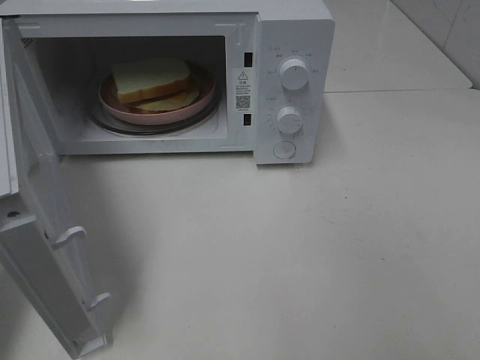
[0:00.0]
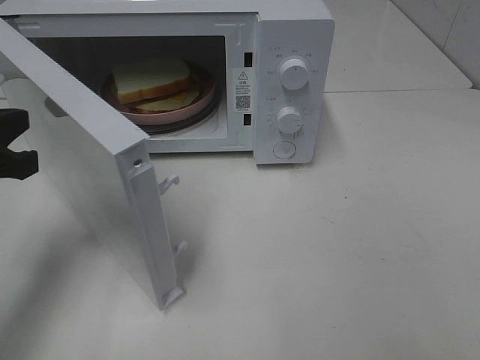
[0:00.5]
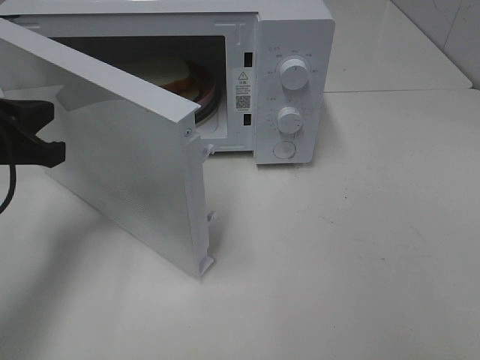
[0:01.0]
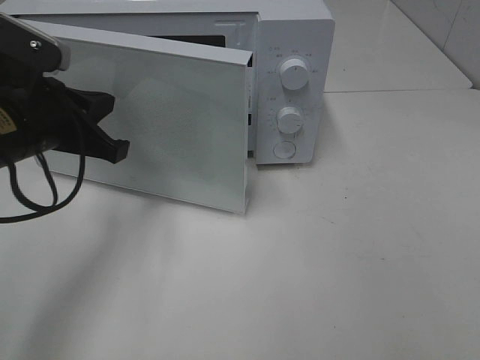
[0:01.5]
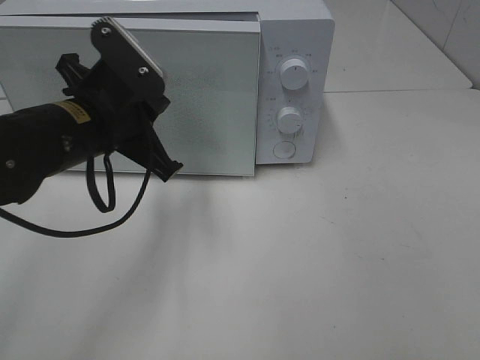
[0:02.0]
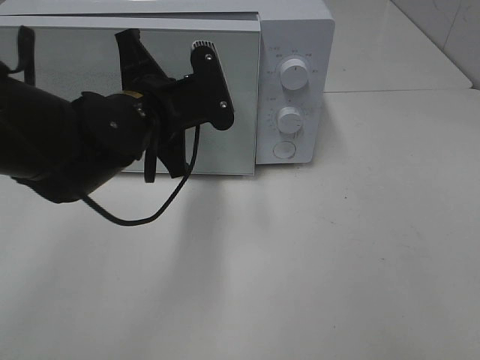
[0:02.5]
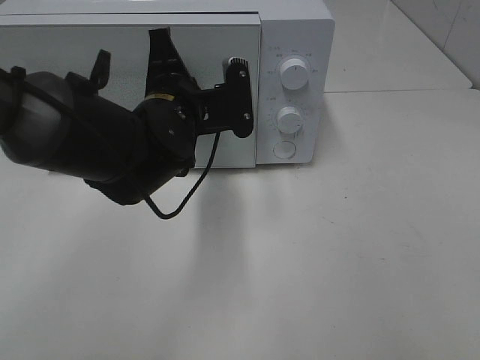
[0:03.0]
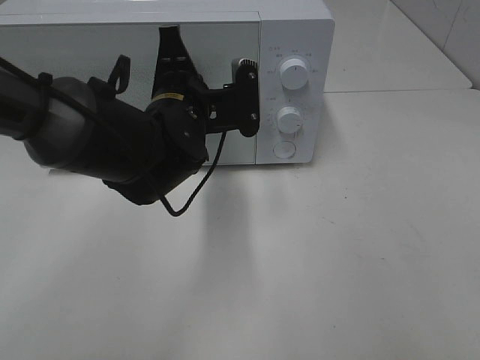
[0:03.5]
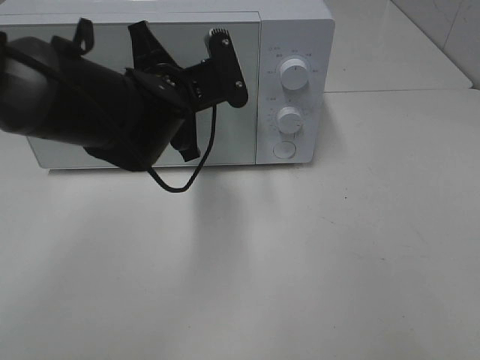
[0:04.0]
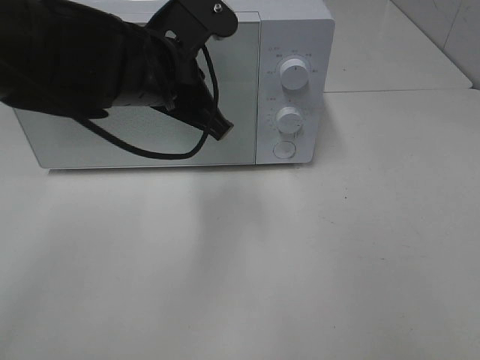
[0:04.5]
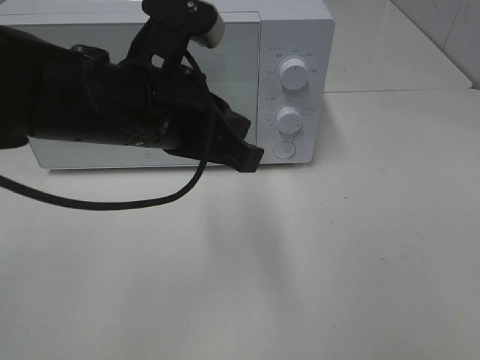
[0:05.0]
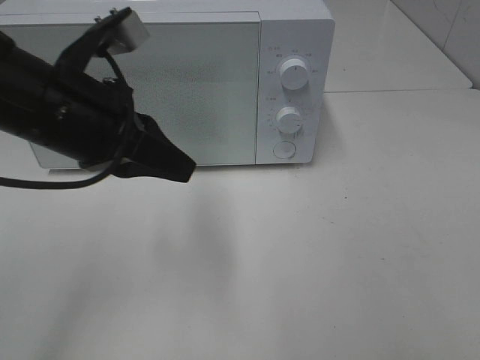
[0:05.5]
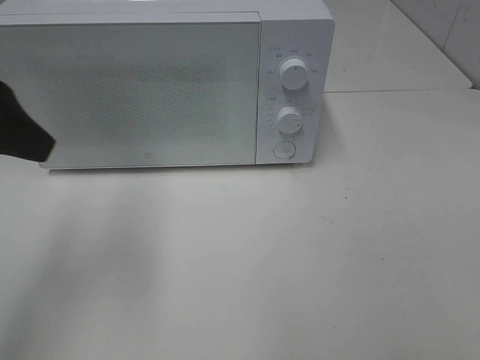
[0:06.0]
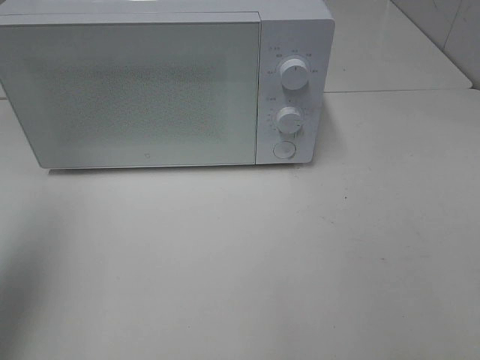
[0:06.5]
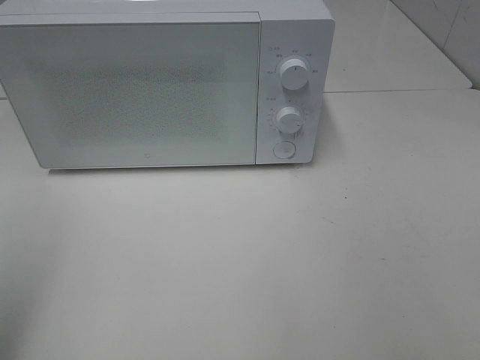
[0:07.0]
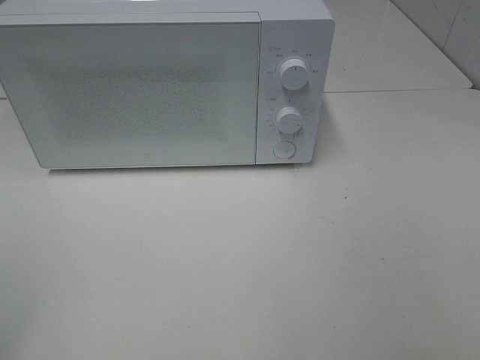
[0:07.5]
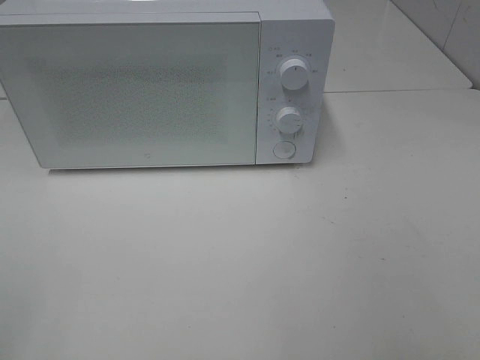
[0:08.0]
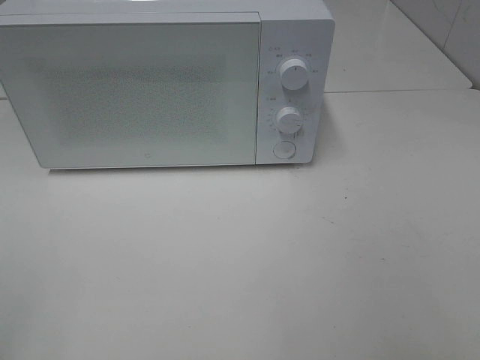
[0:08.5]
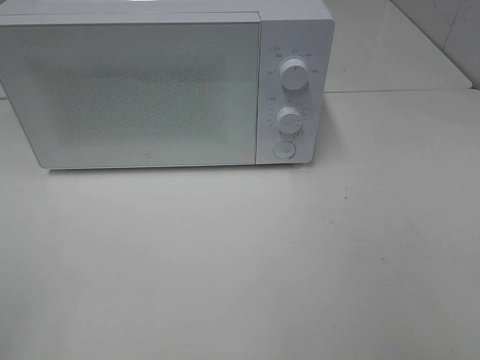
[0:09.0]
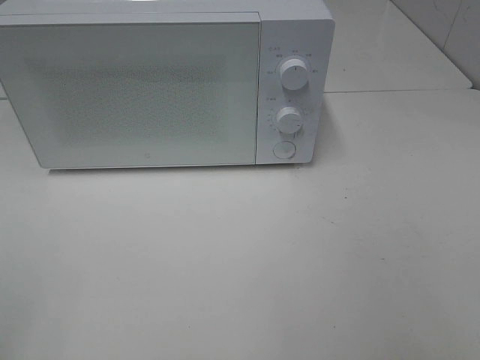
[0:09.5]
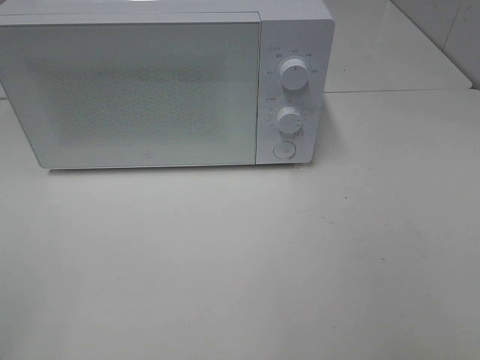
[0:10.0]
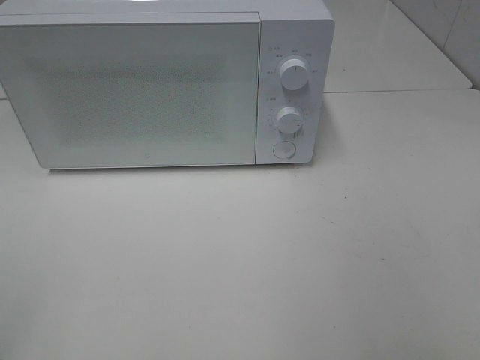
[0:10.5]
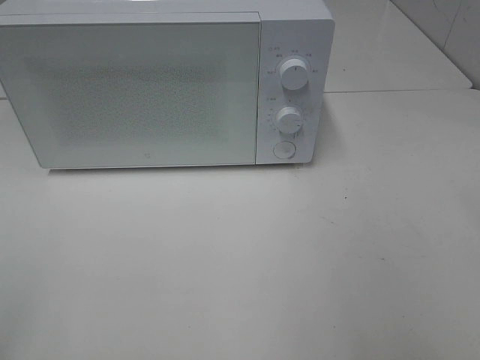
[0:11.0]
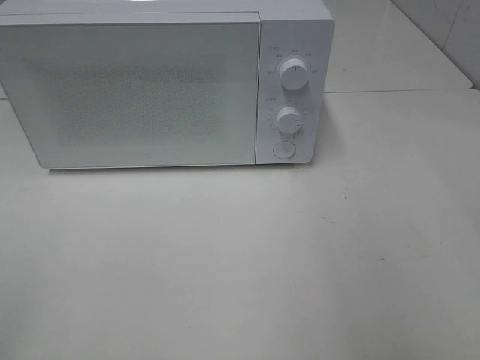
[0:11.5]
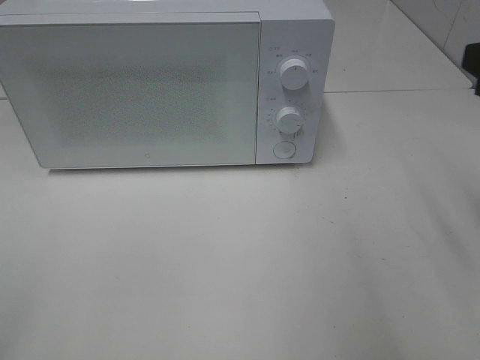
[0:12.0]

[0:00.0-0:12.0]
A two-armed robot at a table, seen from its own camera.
Task of the whole recording: Heat Sandwich.
Step, 0:00.0 to 0:05.0: Left hand: close the microwave door.
0:00.0 to 0:02.0: The left gripper heads to the right and forward, covering approximately 20 cm.
0:02.0 to 0:04.0: The left gripper shifts approximately 5 cm to the right.
0:04.0 to 0:06.0: The left gripper travels to the left, upward and backward by roughly 25 cm, and opens up.
0:06.0 to 0:08.0: The left gripper moves backward and to the left, about 25 cm.
0:08.0 to 0:10.0: The two grippers keep their place.

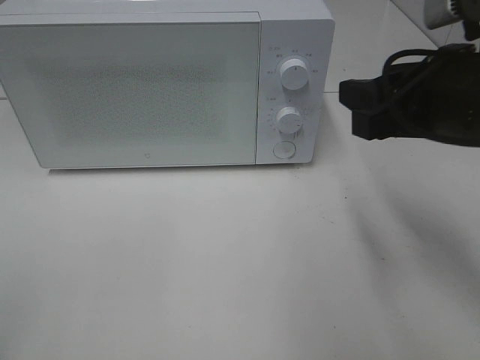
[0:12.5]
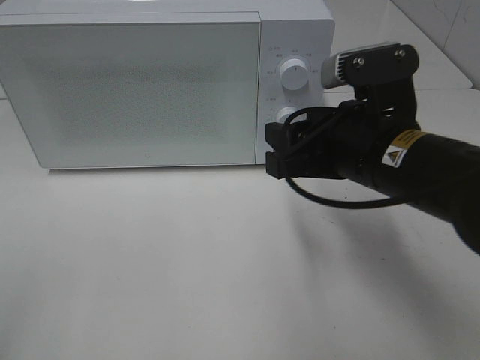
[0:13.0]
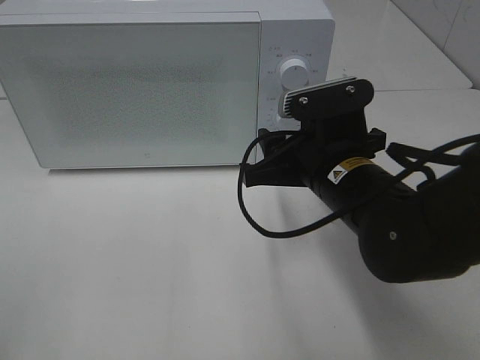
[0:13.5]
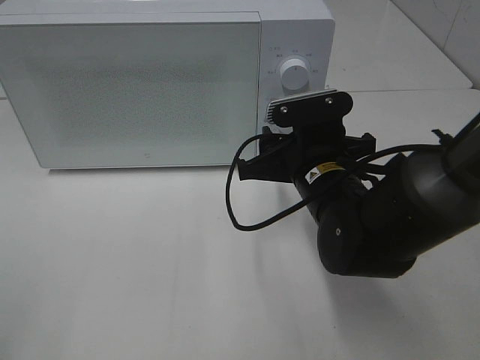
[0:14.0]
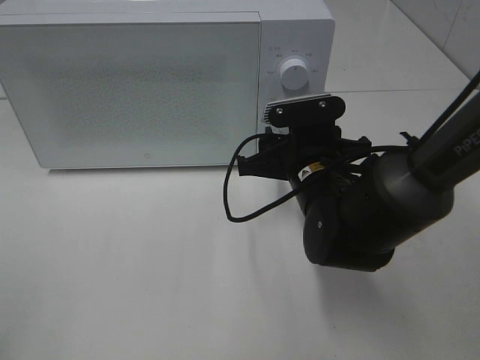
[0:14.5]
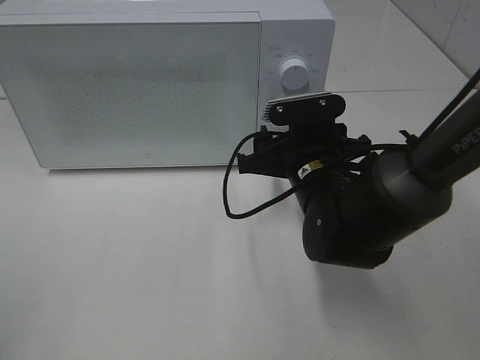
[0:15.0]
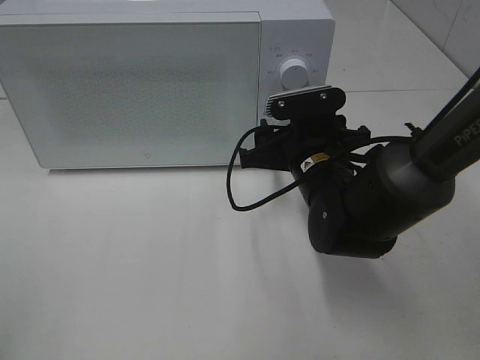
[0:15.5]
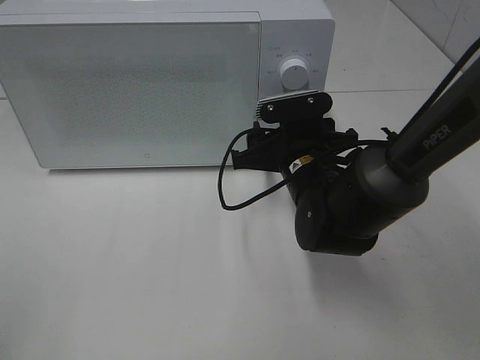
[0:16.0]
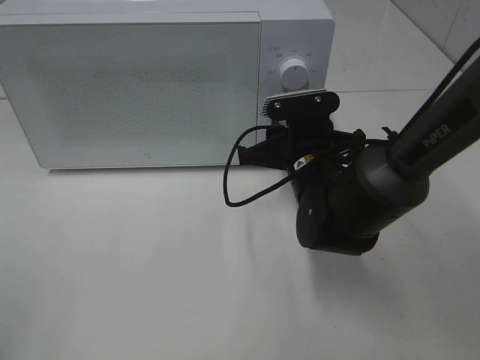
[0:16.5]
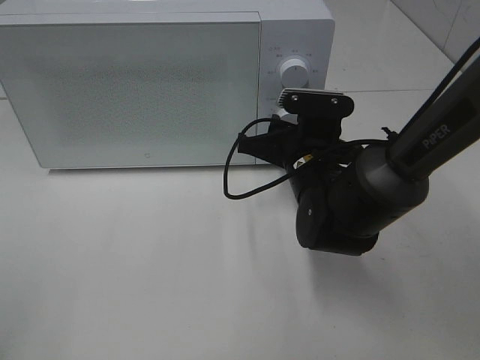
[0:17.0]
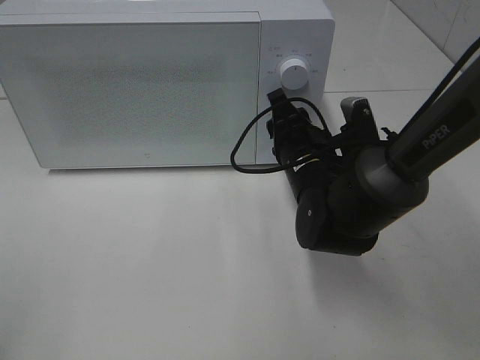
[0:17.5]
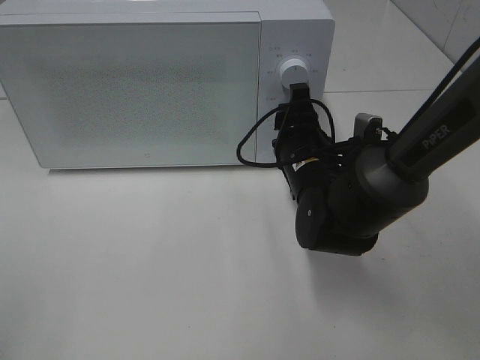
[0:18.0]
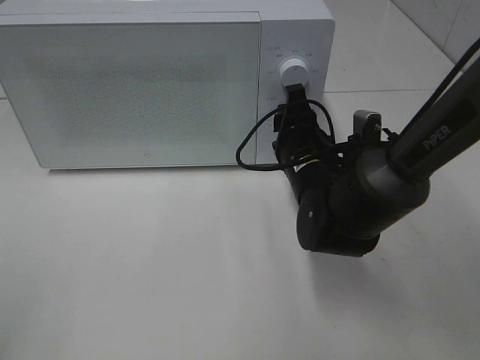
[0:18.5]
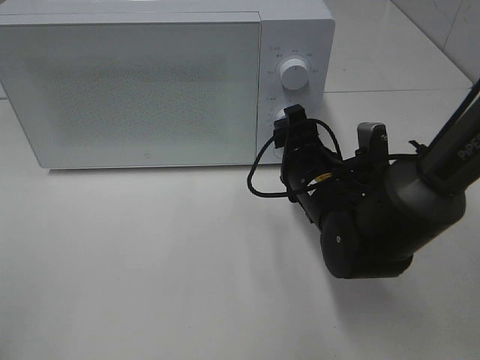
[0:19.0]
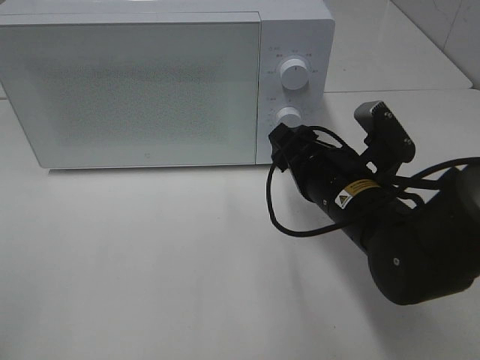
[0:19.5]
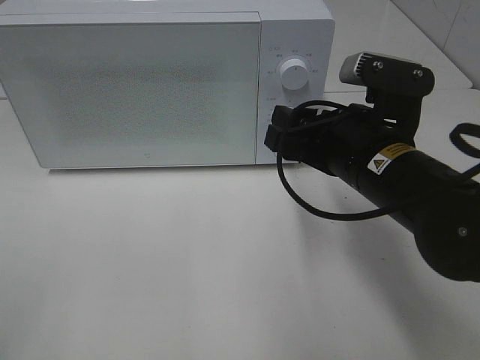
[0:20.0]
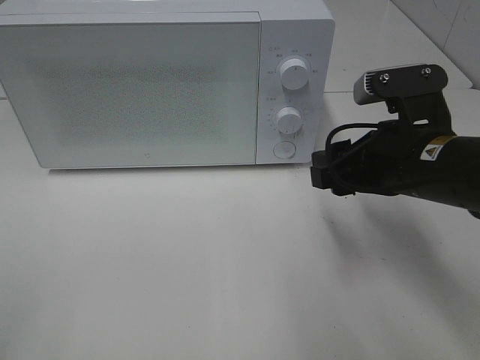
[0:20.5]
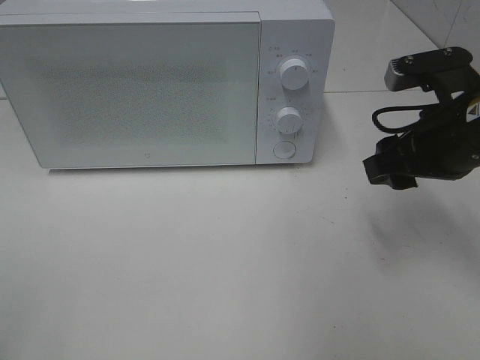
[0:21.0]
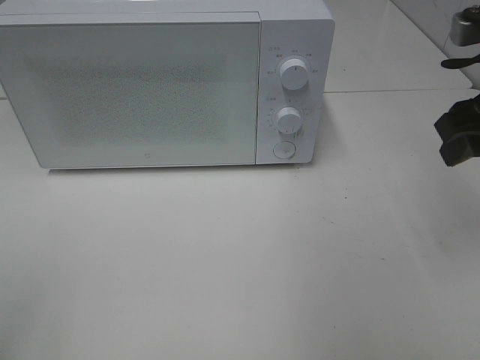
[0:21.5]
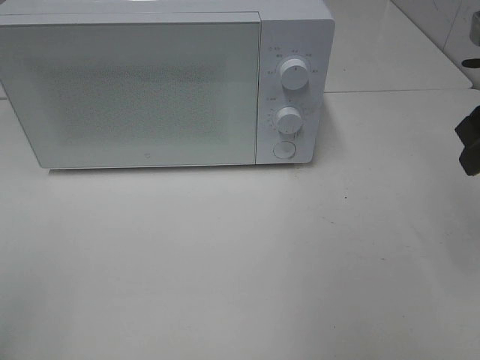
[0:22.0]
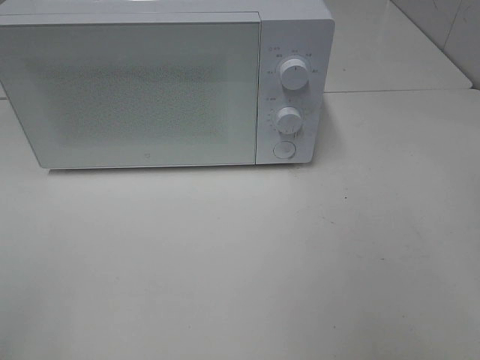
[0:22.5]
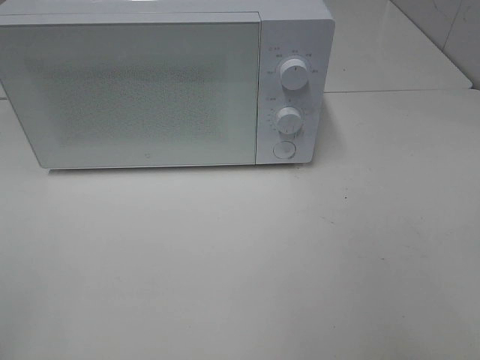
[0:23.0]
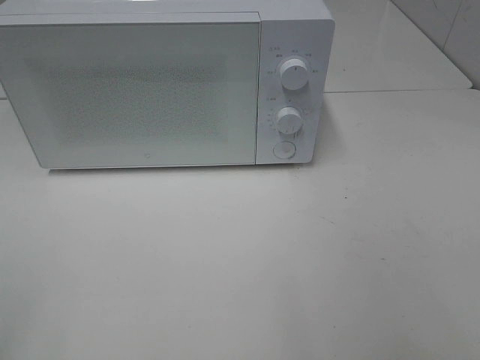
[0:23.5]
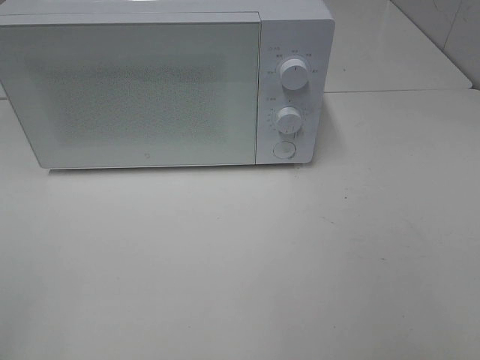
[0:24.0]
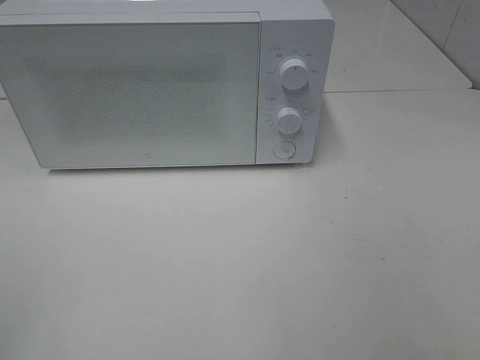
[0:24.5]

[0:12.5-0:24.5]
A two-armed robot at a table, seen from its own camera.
Task of the whole recording: Heat Sandwich.
Step, 0:12.5 to 0:19.5: Right hand: twist timer button.
0:12.5 to 0:14.5: The right gripper is displaced downward, to the left and forward by about 20 cm.
0:14.5 to 0:16.5: The grippers stay close to where they were, moving slightly.
0:18.5 to 0:20.5: The right gripper heads to the right, upward and backward, covering some 15 cm.
0:20.5 to 0:22.5: The right gripper travels to the right, upward and backward by about 15 cm.

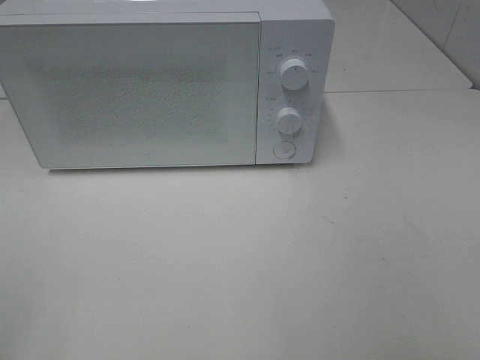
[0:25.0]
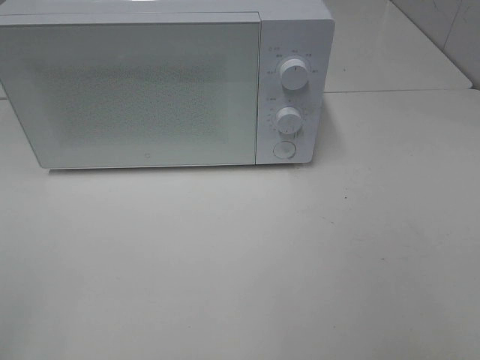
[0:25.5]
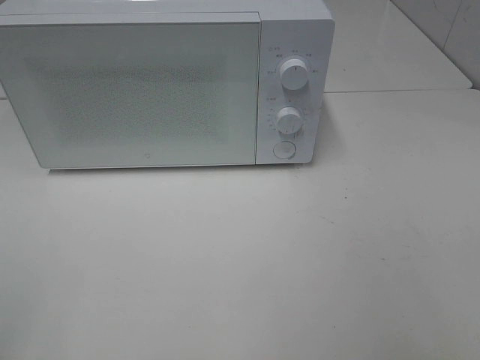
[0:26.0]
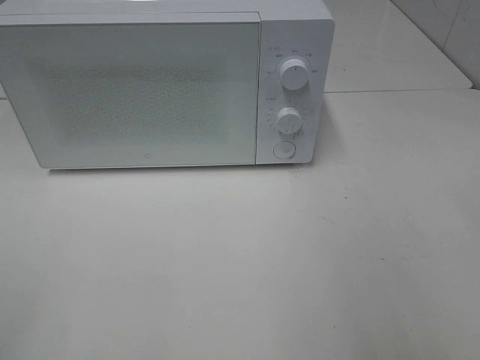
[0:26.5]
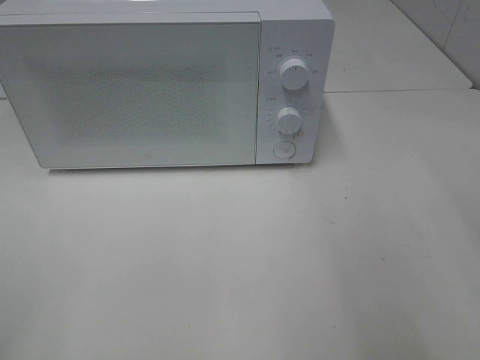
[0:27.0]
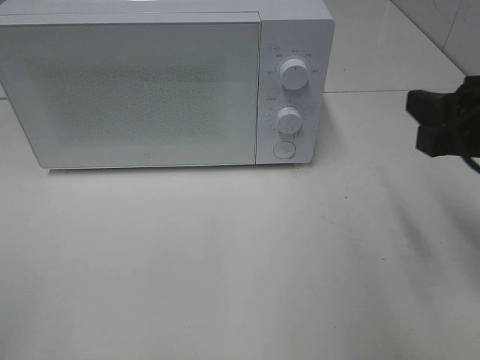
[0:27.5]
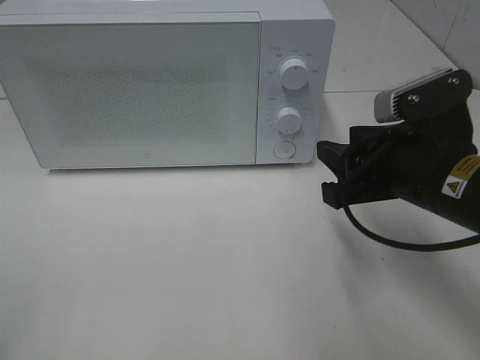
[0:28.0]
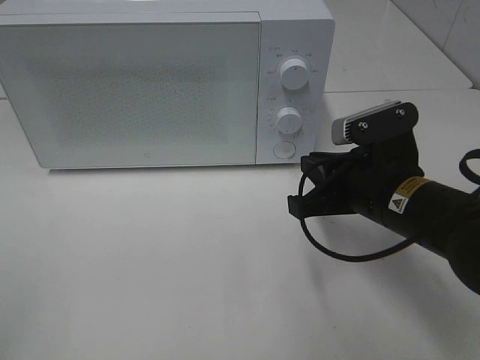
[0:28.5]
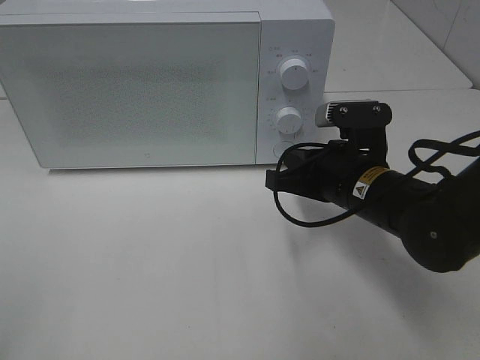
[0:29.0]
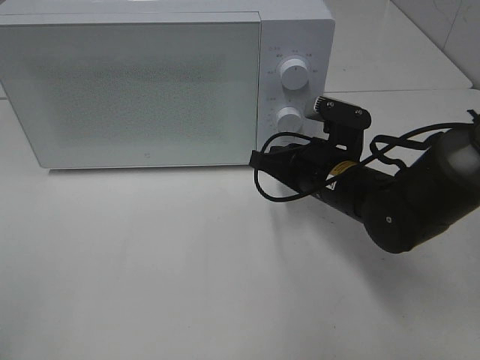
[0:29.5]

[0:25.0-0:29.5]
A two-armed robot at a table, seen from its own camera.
Task of the whole recording: Heat Sandwich.
0:27.0 to 0:29.5: The right gripper goes some 30 cm downward, to the left and forward, and closes its fingers.
